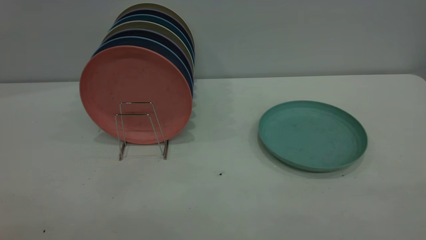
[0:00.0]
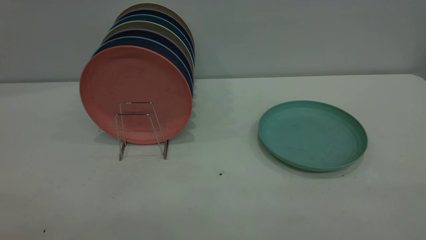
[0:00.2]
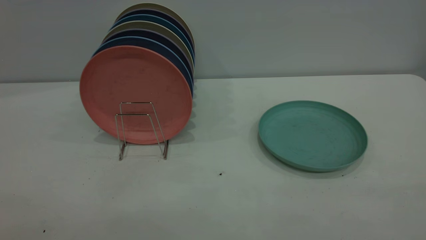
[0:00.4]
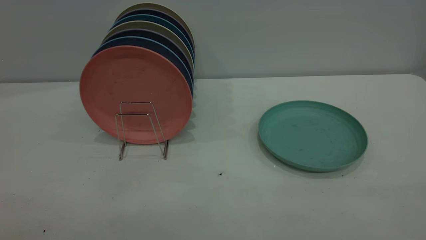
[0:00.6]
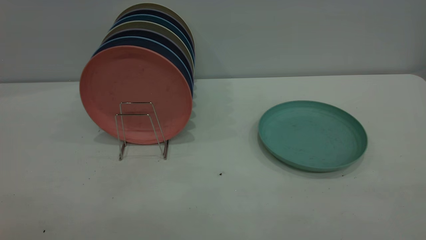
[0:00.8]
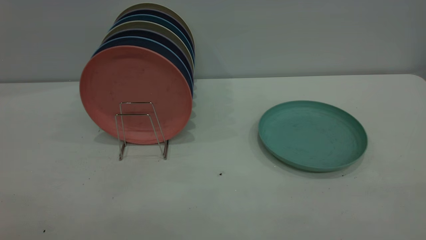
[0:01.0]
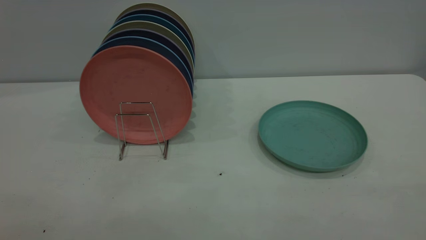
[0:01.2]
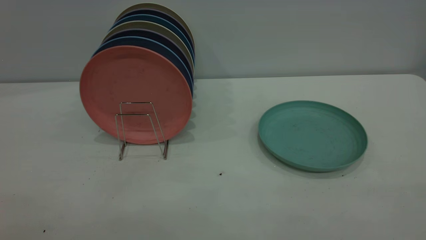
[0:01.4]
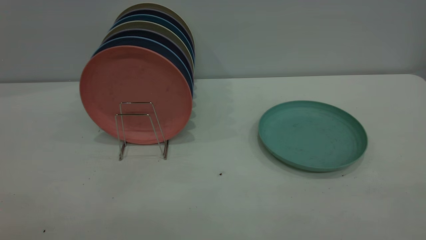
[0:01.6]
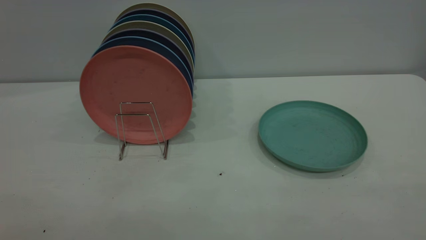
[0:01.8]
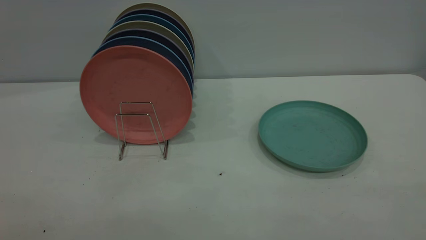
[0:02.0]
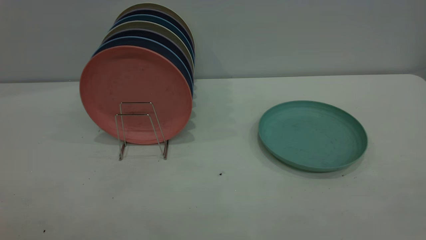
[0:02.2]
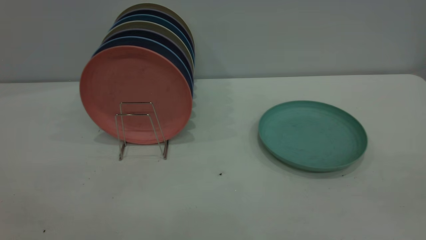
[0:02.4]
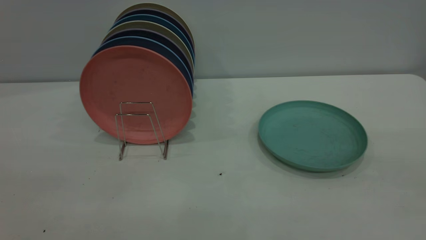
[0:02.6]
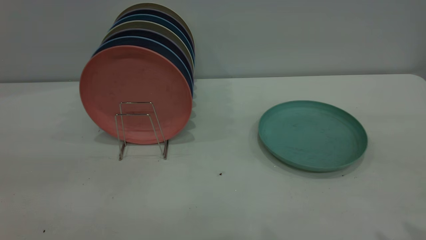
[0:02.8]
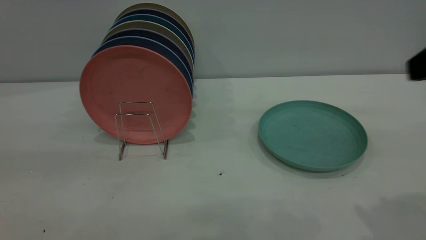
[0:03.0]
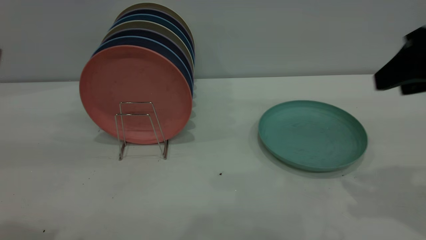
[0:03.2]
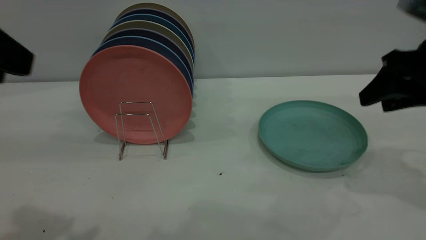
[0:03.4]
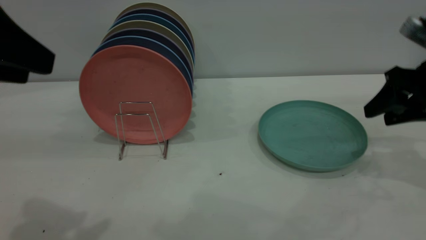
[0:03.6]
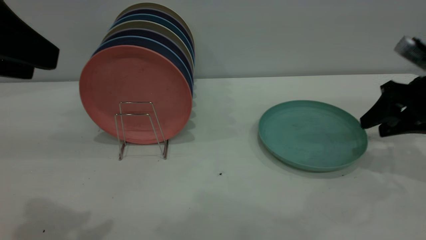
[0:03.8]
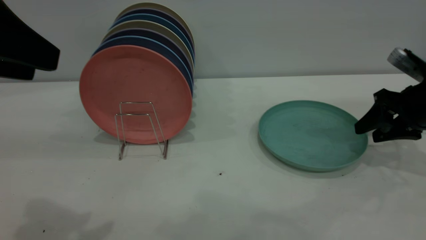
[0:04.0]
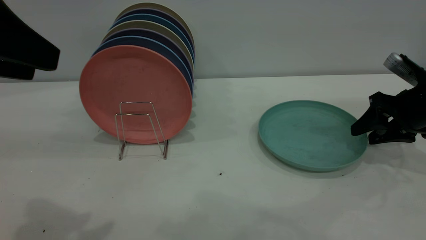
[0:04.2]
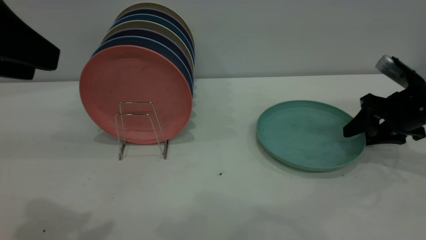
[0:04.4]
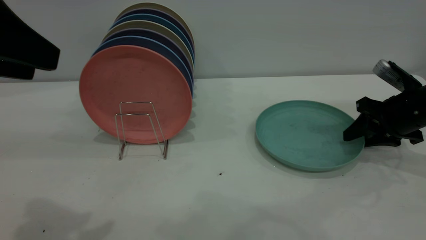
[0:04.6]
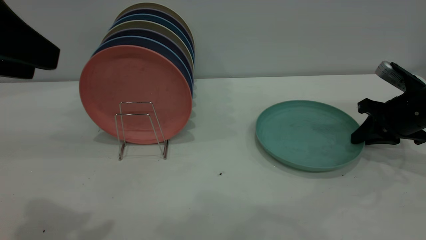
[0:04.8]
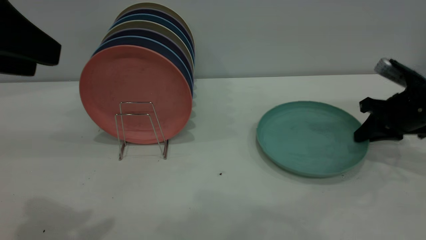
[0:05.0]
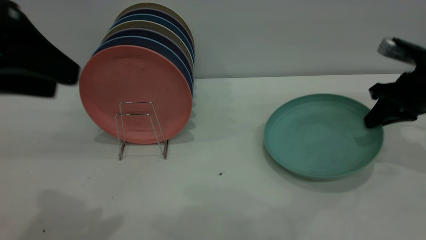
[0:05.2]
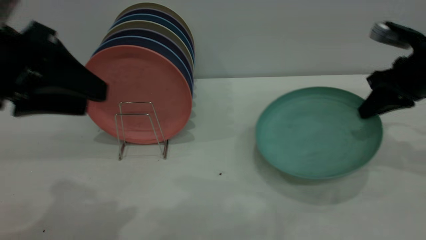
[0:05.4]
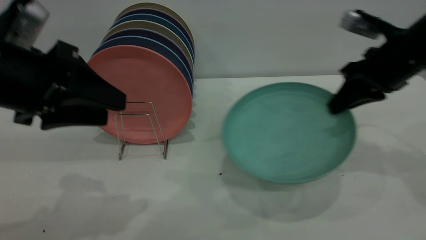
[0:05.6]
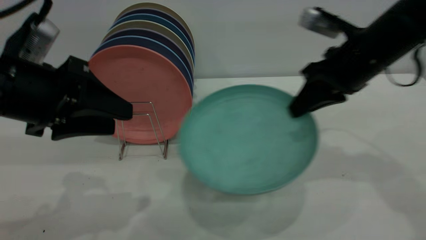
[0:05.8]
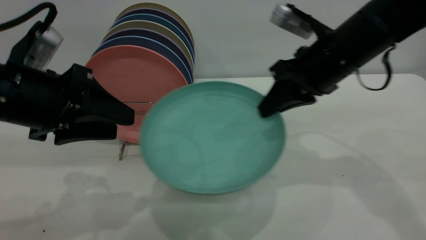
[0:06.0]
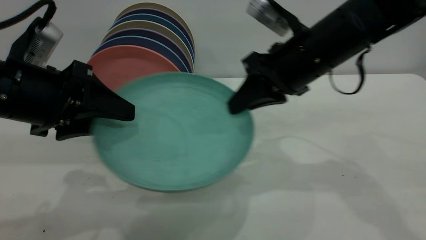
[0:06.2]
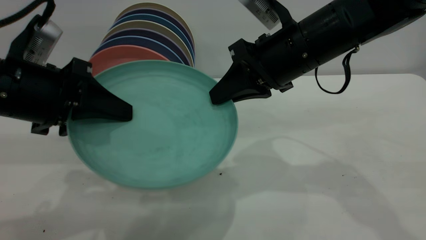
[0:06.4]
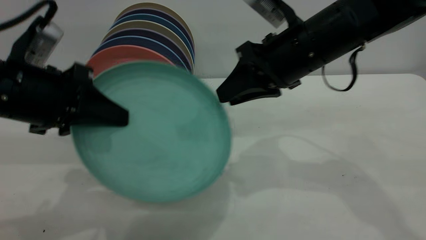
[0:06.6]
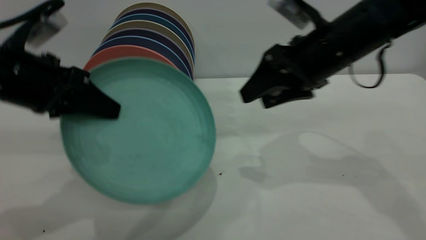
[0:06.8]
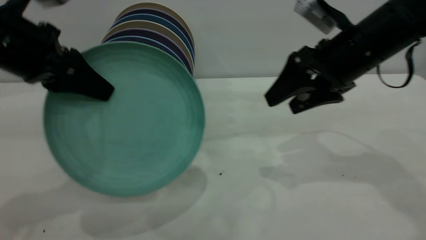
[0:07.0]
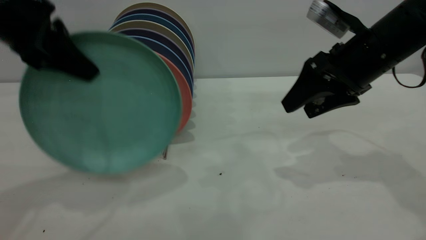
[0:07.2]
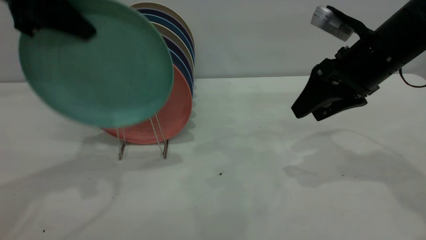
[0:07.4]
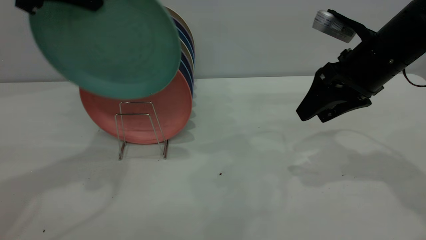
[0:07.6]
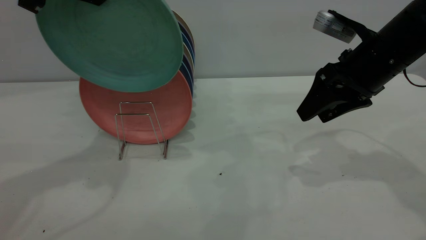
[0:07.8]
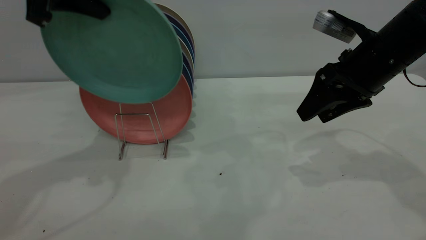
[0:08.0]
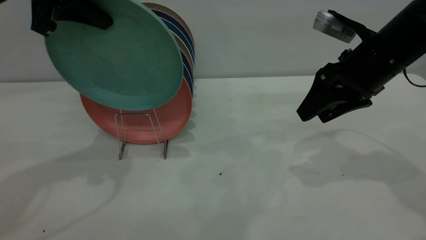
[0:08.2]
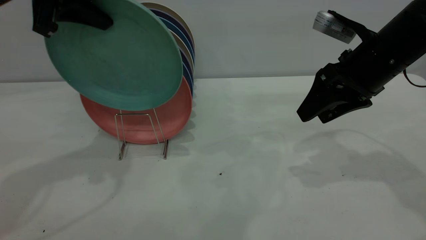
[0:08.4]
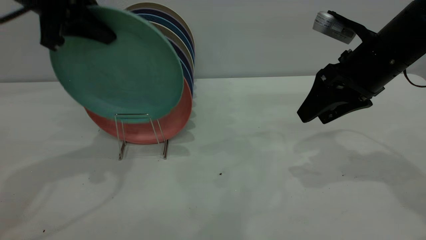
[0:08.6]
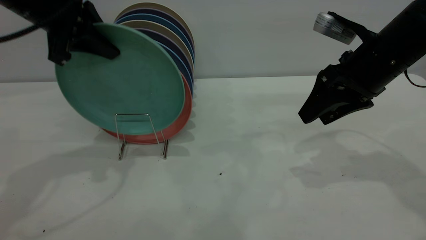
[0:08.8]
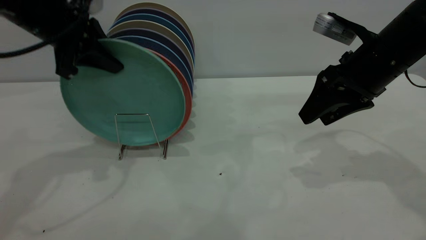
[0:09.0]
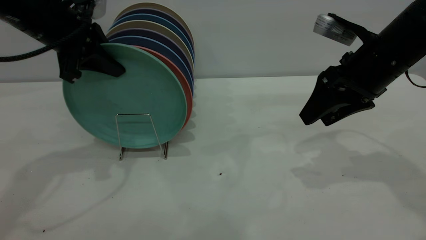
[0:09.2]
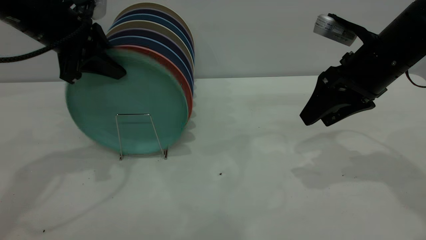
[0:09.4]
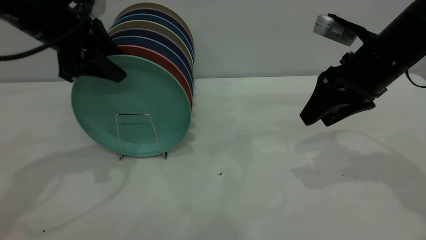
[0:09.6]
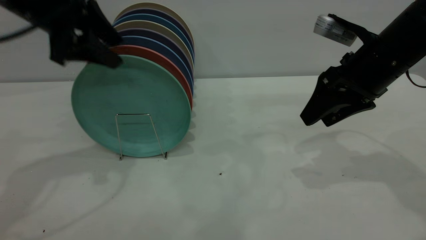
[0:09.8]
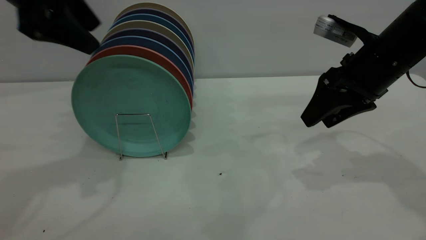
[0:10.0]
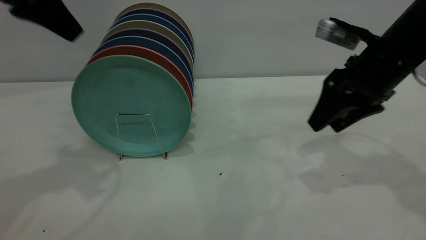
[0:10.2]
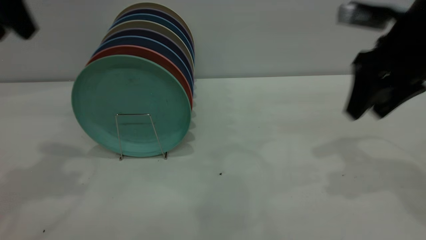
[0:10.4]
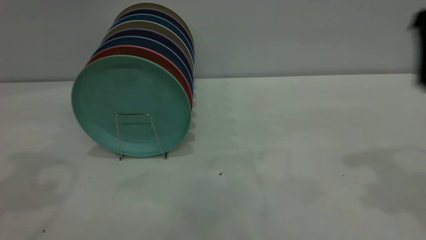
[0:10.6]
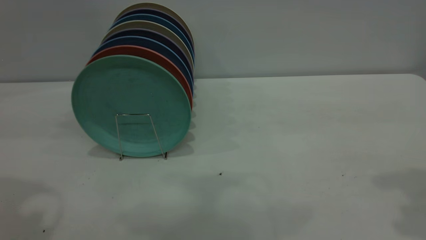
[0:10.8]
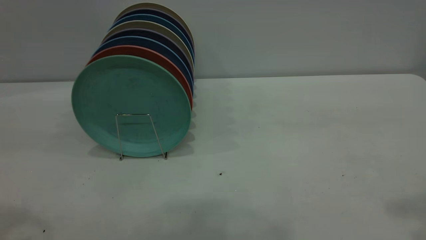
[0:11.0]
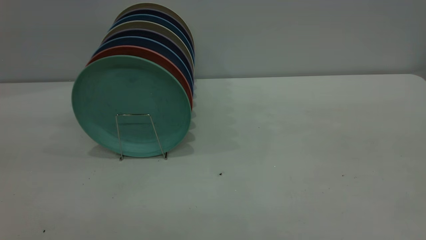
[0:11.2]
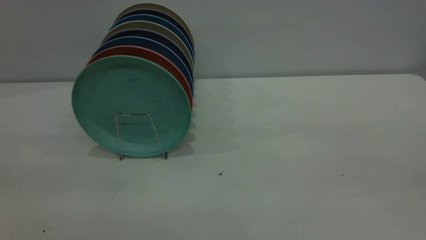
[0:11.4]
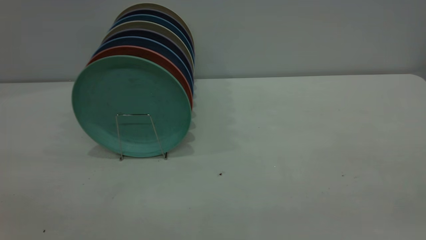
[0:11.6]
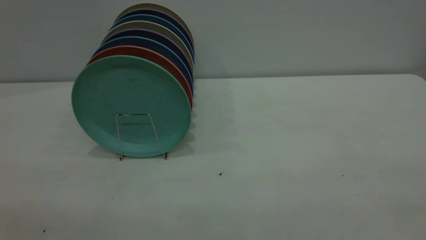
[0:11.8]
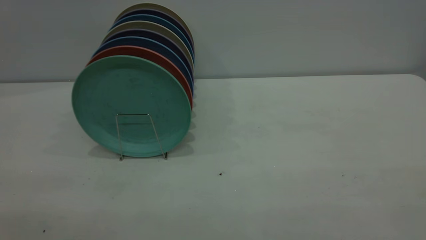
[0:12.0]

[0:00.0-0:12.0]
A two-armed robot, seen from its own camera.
Task of the whole recording: the right gripper grasp the green plate, the right gripper pass the green plate to the left gripper, and the left gripper place the green plate on the plate rack.
Step, 0:00.0 to 0:05.2: Pick up the plate with the right gripper.
Step, 0:05.6 to 0:06.4: Pass the plate from the right gripper to the left gripper.
Step, 0:06.8 to 0:09.8: Place the plate on the shelf.
0:00.0 to 0:01.6: Both grippers stay about where they are.
0:03.0 to 0:04.4: The left gripper moves forward, approximately 5 cm. The right gripper heads downward and forward, covering roughly 25 cm.
0:04.4 to 0:06.0: The left gripper goes some 15 cm downward and forward; the right gripper travels to the left and upward by approximately 20 cm, and closes.
0:06.0 to 0:07.6: The left gripper goes approximately 20 cm upward and forward, and closes. Meanwhile the right gripper heads to the right, covering approximately 5 cm, and opens up.
0:07.6 to 0:09.0: The left gripper shifts approximately 10 cm downward.
0:09.0 to 0:10.4: The left gripper goes about 15 cm upward and backward, and opens. The right gripper is displaced upward by about 5 cm.
0:10.4 to 0:12.0: The grippers both shift backward by approximately 30 cm.
